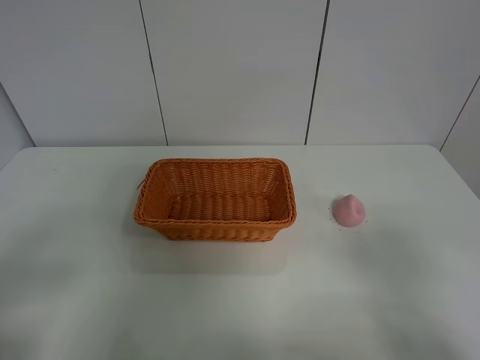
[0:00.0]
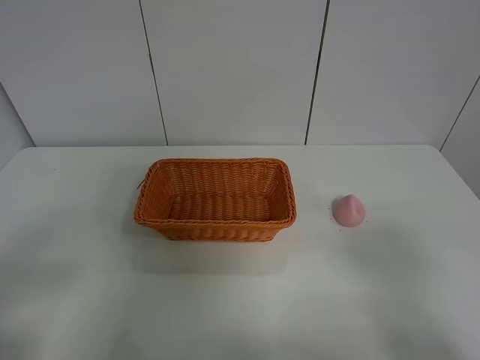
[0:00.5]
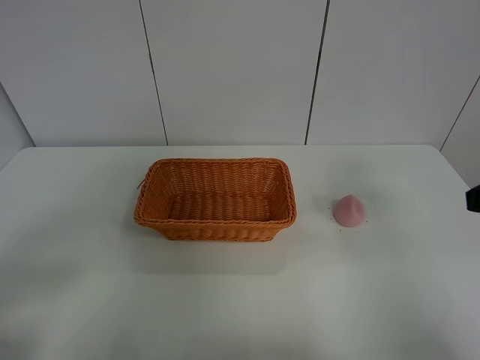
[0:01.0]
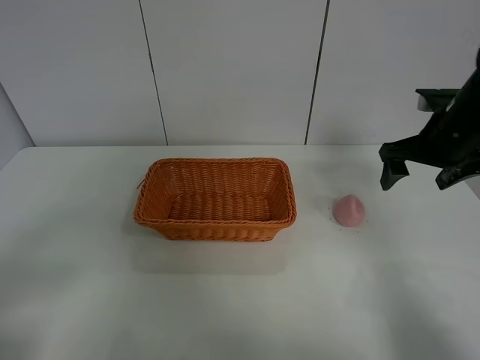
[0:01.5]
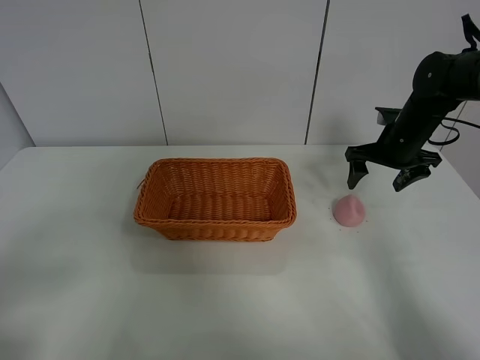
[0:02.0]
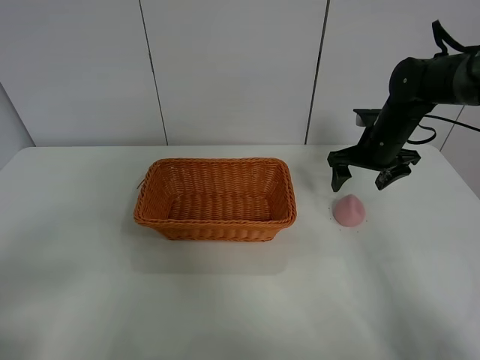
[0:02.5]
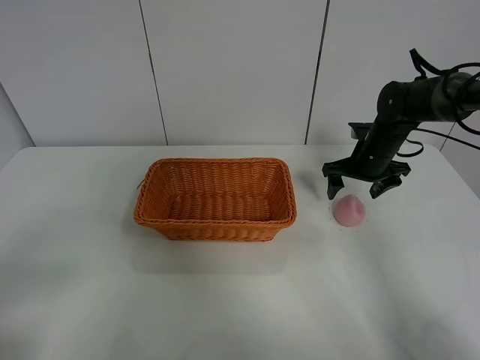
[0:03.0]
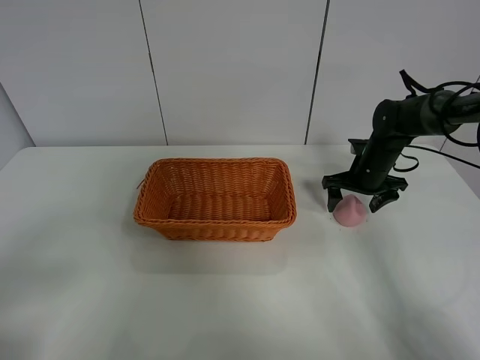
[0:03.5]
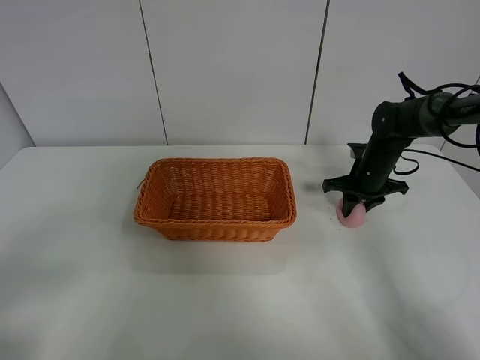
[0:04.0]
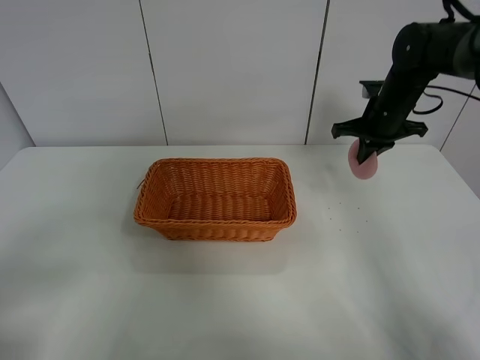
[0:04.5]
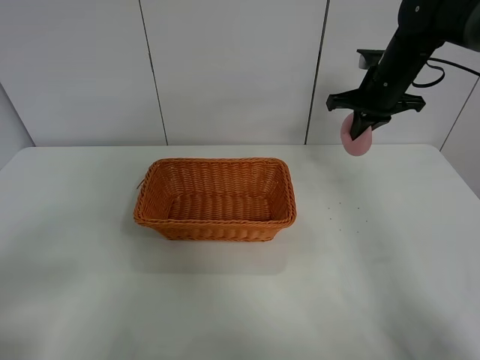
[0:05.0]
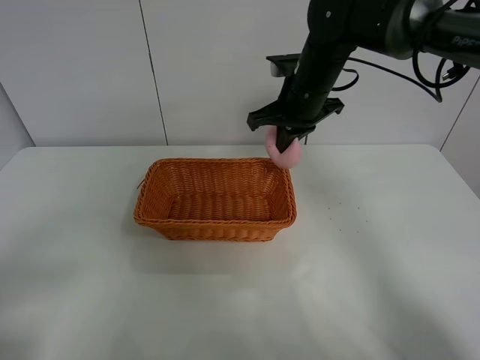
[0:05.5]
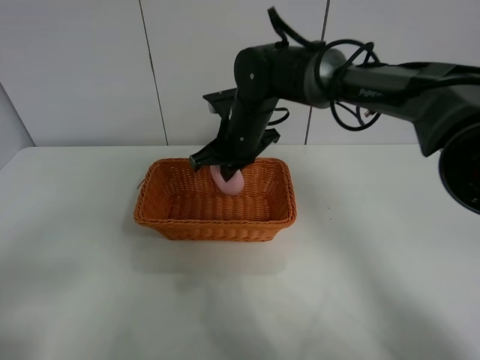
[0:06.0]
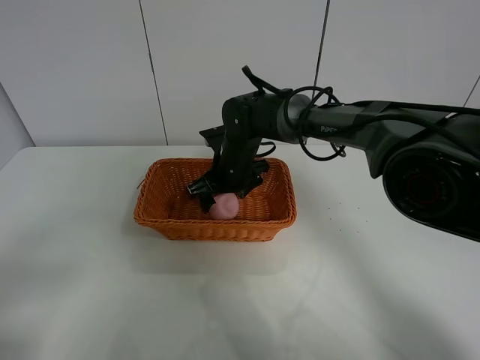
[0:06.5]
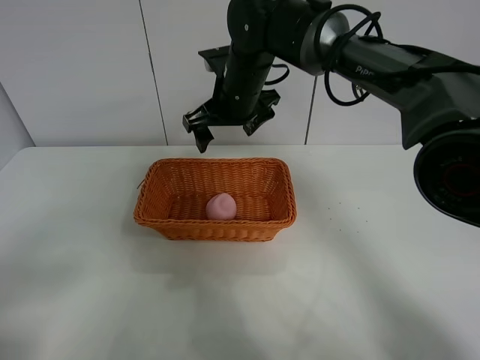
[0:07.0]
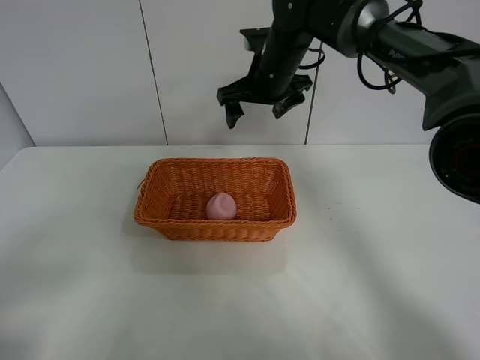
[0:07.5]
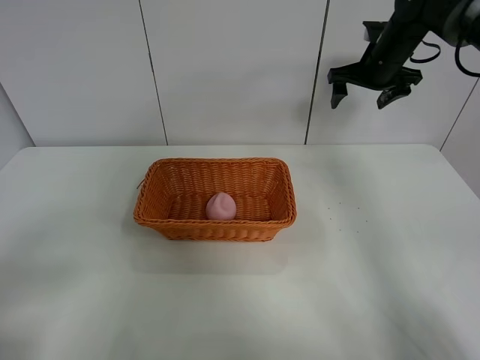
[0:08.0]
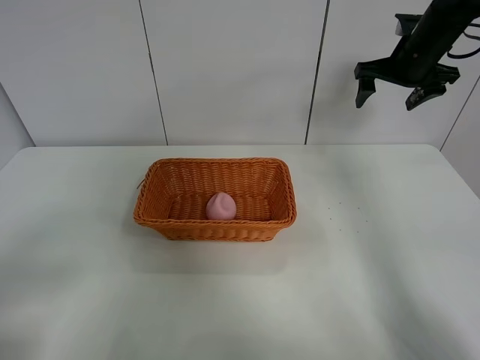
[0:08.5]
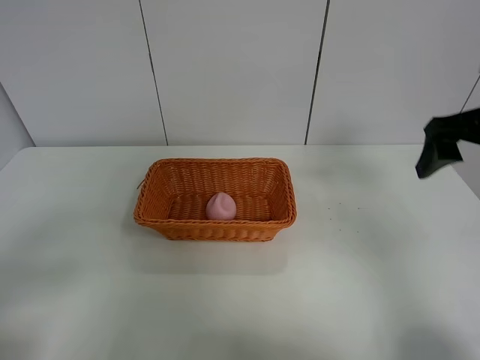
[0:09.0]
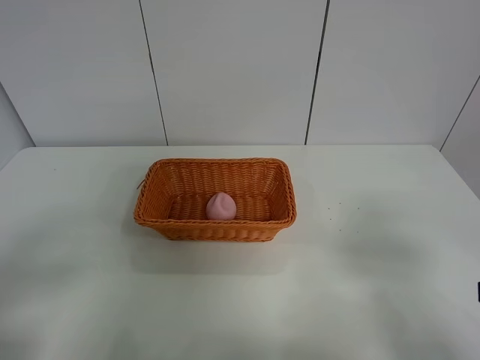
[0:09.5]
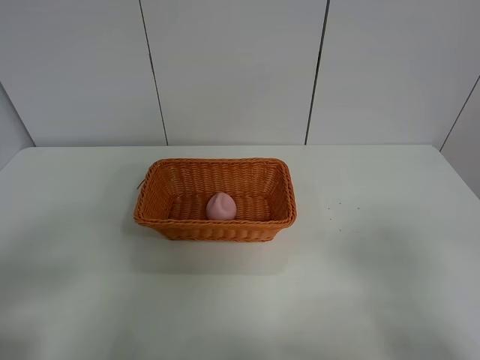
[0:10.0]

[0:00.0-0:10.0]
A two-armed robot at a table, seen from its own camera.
Step, 0:00.0 to 0:04.0: Grasp the peach with right gripper.
Step, 0:04.5 to 0:07.0: Place the peach in the basket with right gripper.
0:00.0 to 0:02.0: The right gripper travels forward by approximately 40 cm.
0:02.0 to 0:04.0: The right gripper is displaced downward by some 10 cm, and closes.
0:04.0 to 0:06.0: The right gripper travels to the left by about 25 cm.
0:06.0 to 0:08.0: The right gripper heads to the right and forward, covering some 30 cm, and opens.
0:08.0 to 0:10.0: The right gripper shifts roughly 50 cm backward.
